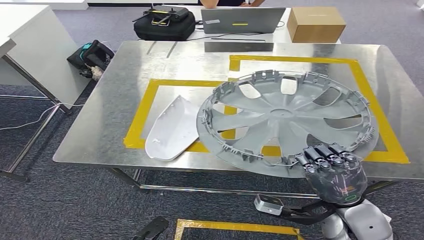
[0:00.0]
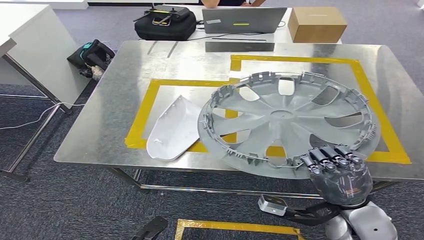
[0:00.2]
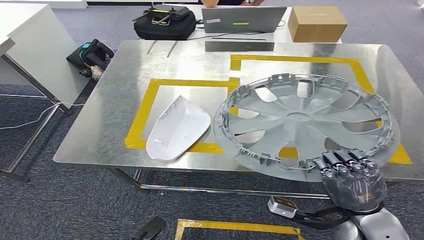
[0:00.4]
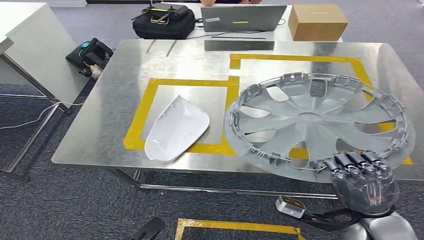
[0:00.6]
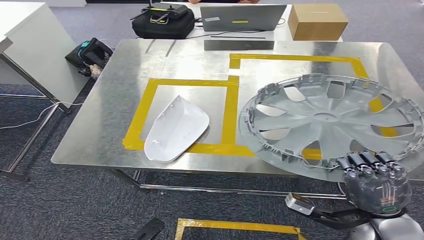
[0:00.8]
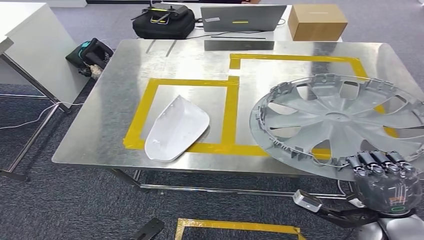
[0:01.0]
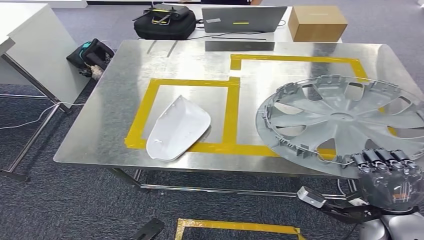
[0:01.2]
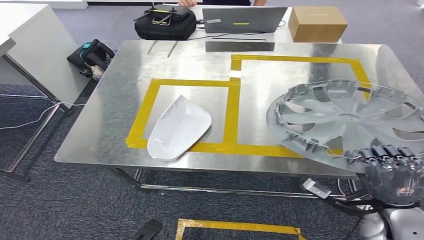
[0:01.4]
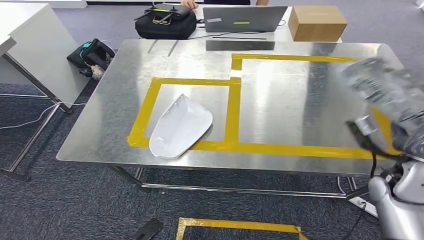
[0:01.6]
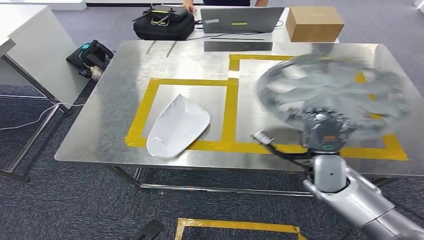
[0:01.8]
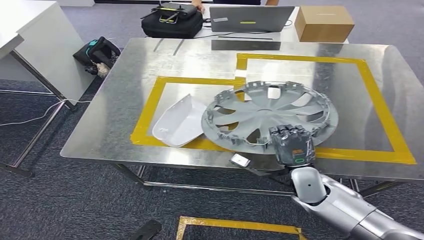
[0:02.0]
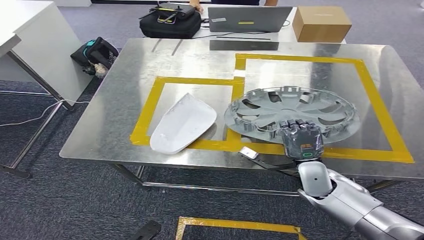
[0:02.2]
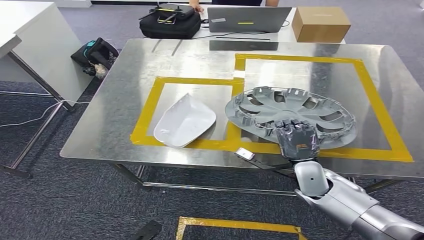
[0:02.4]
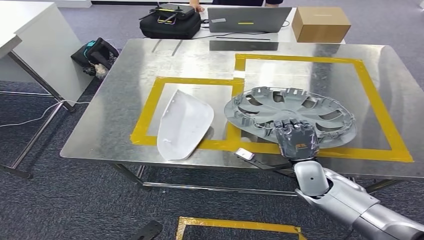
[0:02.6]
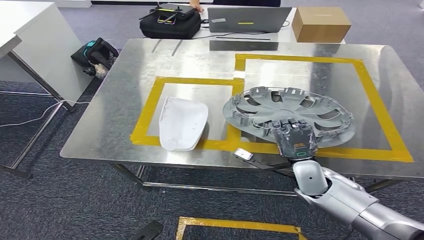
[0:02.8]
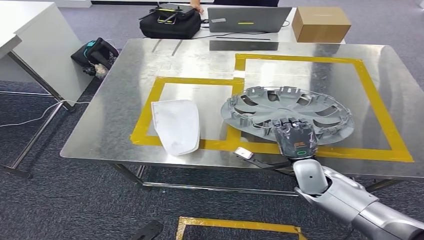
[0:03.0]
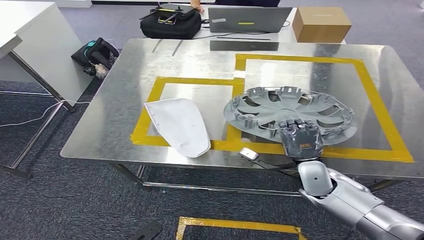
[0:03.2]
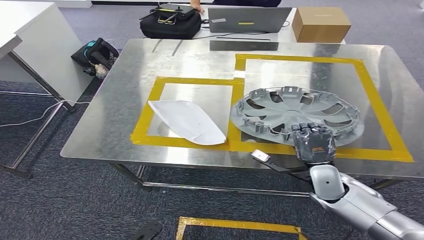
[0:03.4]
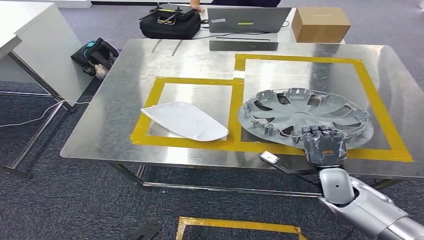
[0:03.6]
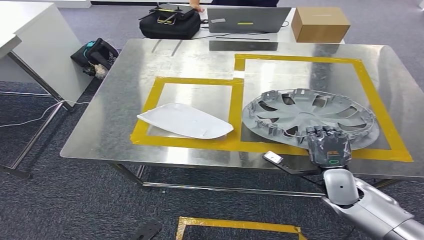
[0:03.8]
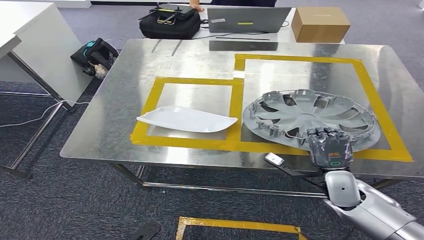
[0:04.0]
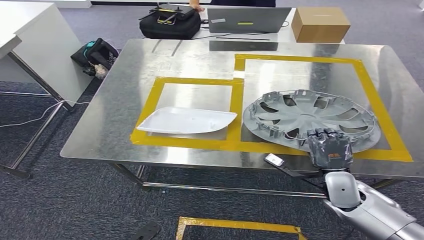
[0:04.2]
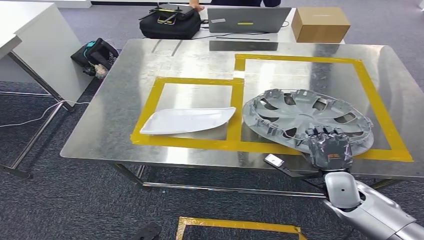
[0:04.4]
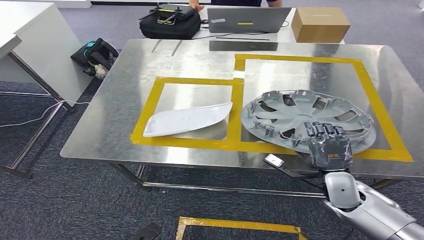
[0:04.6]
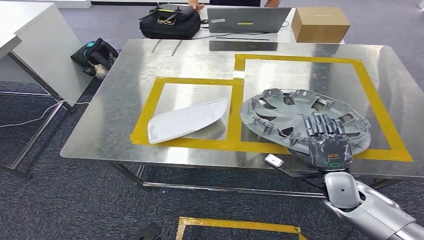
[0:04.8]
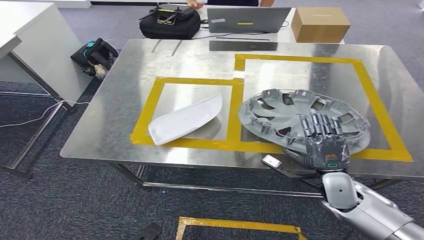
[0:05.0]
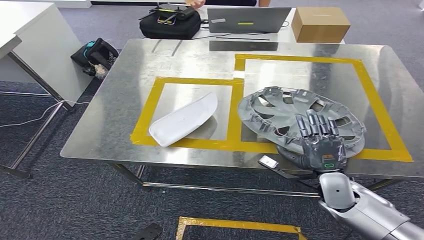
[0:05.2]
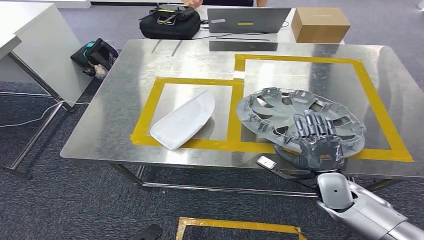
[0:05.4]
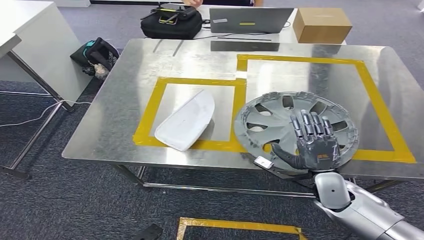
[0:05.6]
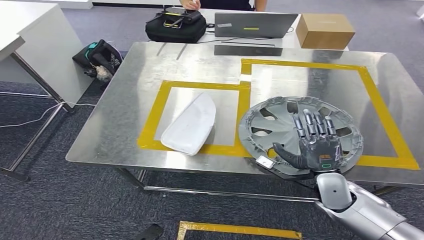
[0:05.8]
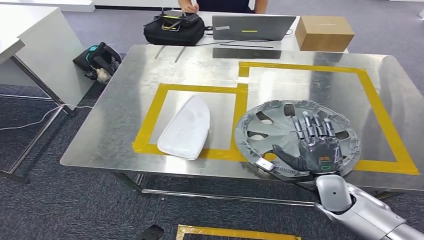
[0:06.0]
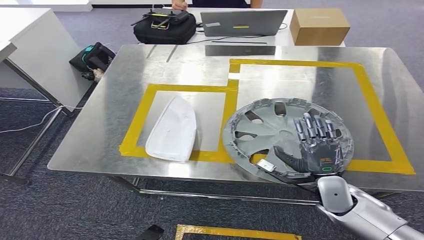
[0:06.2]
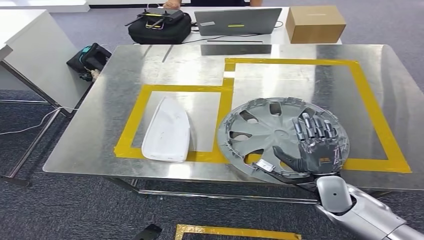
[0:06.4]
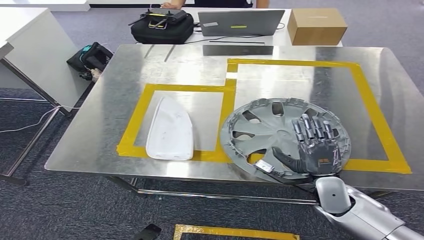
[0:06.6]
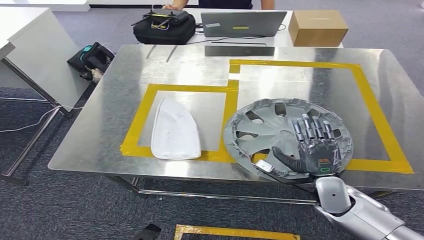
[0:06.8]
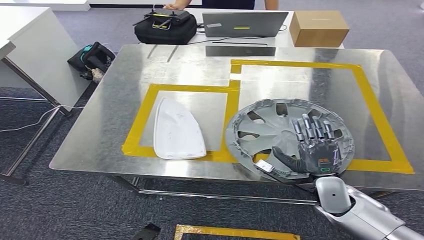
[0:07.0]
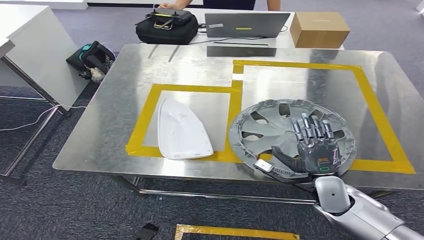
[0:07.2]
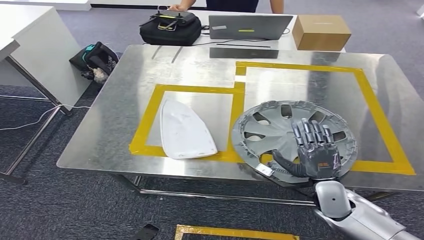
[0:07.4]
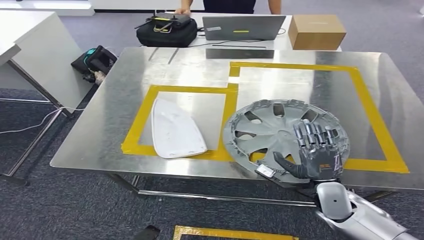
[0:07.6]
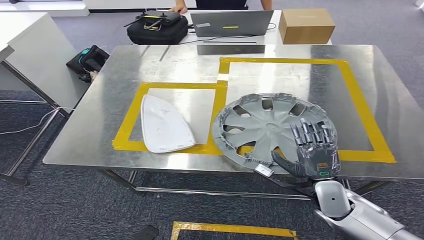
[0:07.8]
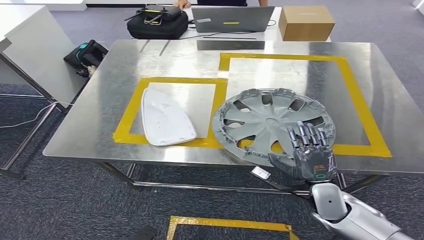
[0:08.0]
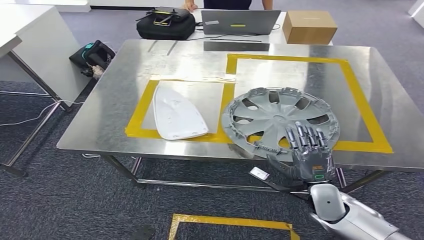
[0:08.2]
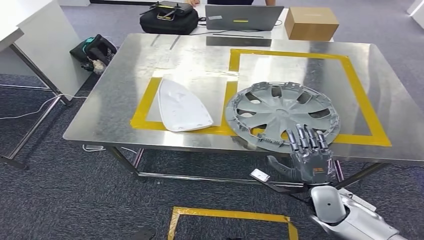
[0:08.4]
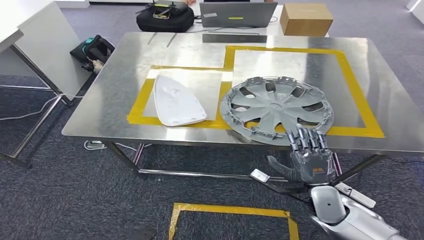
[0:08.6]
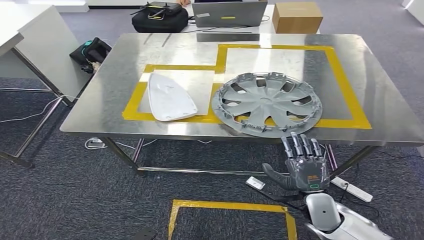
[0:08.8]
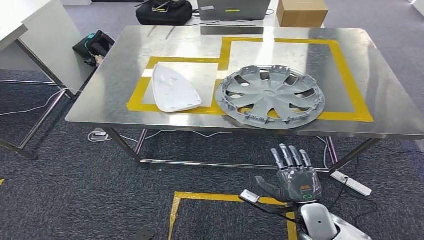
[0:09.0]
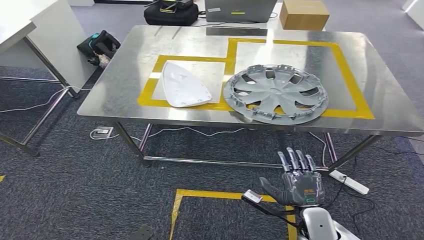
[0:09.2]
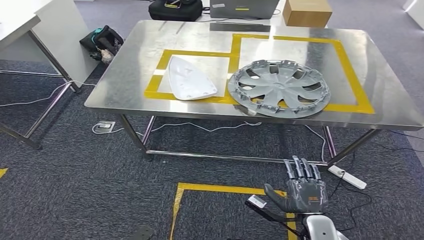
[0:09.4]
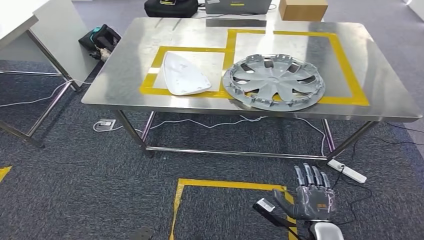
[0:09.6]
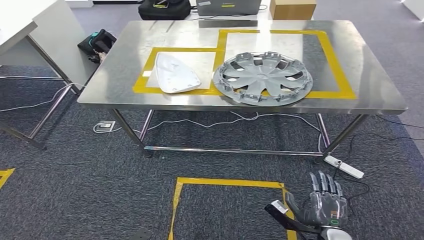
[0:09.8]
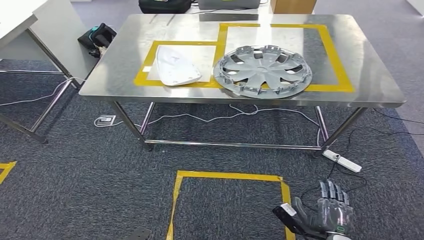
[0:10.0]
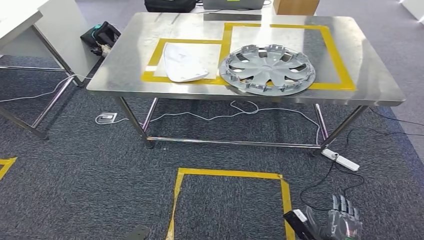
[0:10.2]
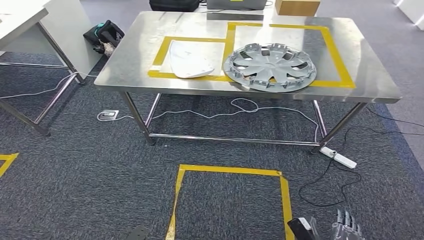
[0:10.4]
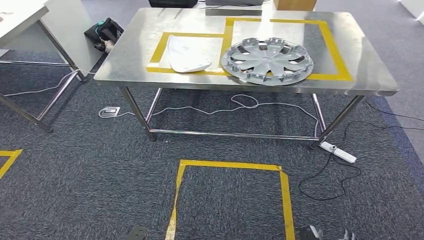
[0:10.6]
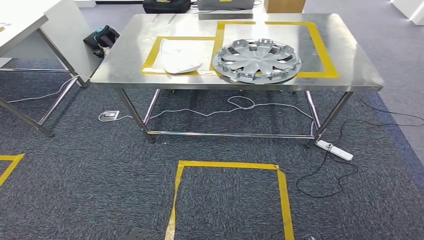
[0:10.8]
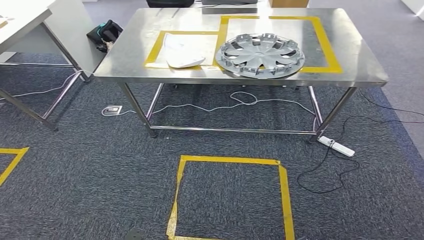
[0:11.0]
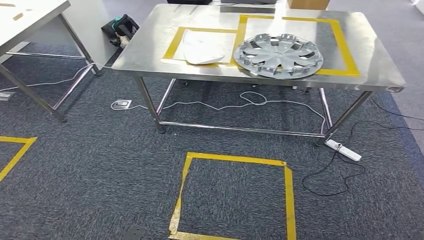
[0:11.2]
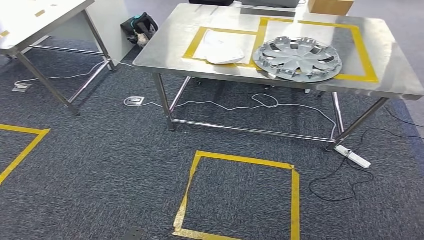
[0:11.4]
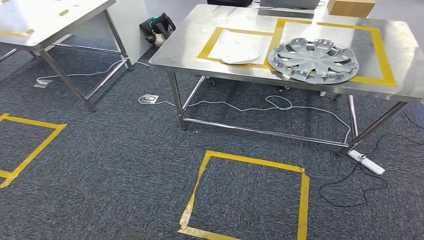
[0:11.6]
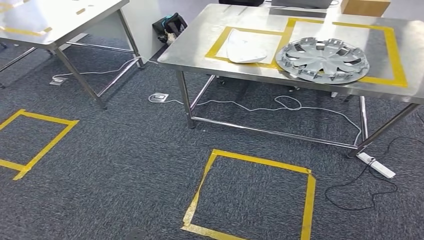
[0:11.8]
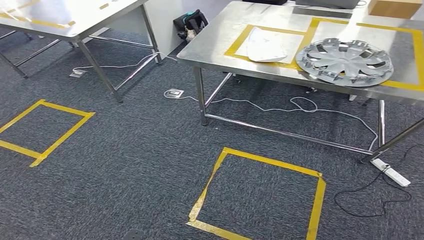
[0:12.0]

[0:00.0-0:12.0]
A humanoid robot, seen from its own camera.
Step, 0:00.0 to 0:09.2: Insert the small component into the corresponding slot on the workbench.
0:03.0 to 0:04.4: The right hand travels to the right by roughly 5 cm.

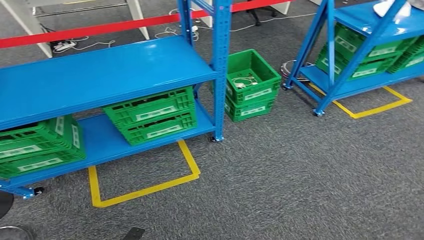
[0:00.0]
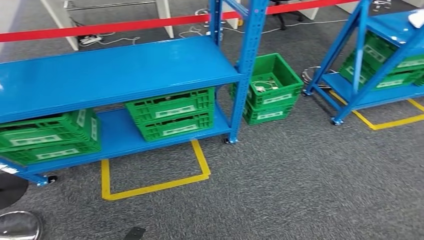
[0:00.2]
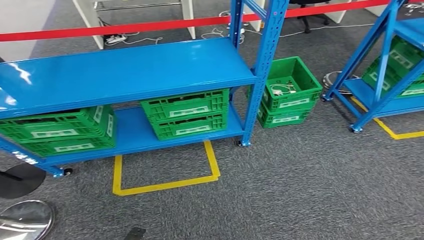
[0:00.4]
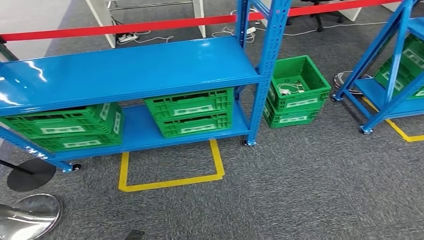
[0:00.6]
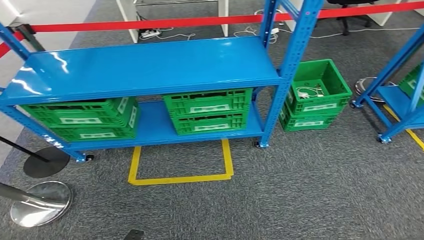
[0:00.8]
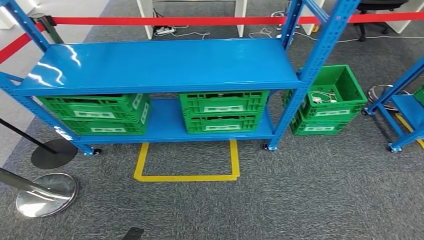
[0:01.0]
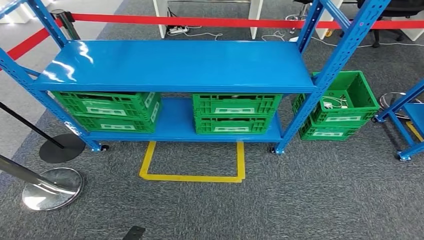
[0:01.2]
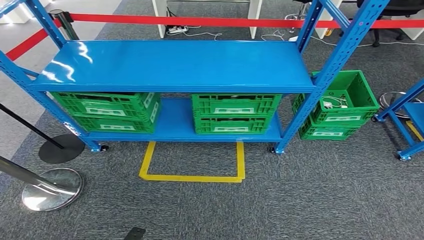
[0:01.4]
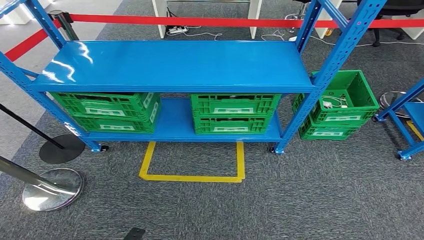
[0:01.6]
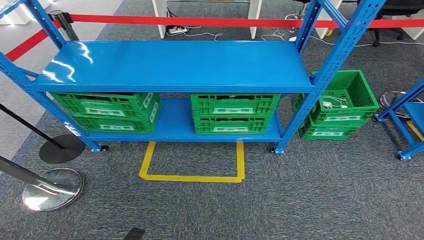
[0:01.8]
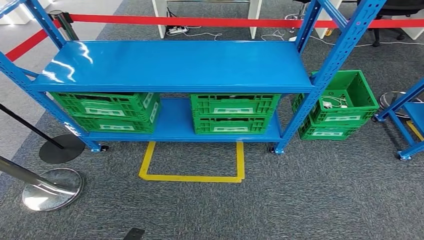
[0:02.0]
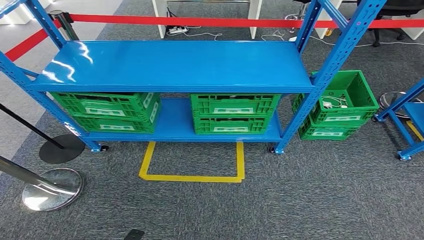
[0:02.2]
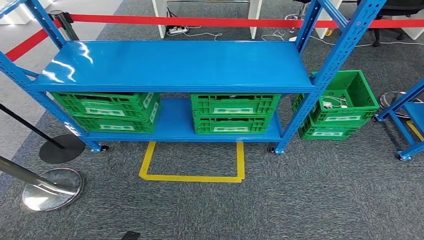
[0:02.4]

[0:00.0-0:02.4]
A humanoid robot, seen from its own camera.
Step, 0:00.0 to 0:02.4: Move to the initial position at the workbench.
0:01.2 to 0:02.4: The hands move only a little.
